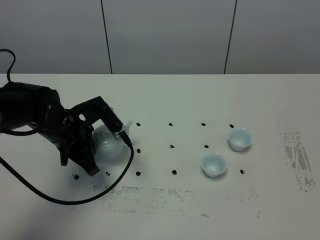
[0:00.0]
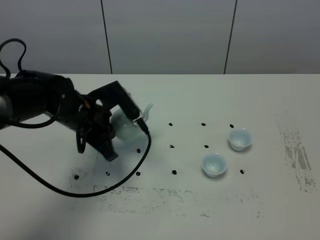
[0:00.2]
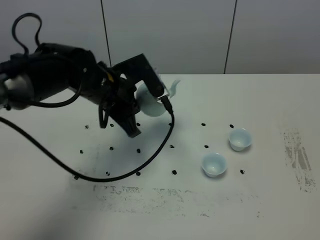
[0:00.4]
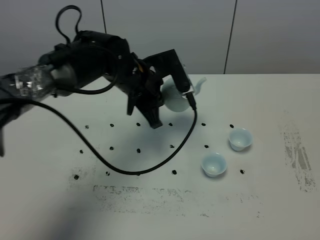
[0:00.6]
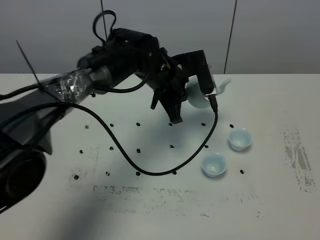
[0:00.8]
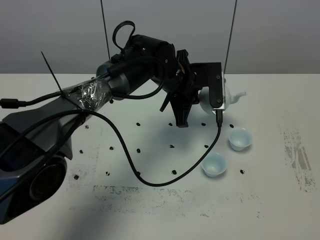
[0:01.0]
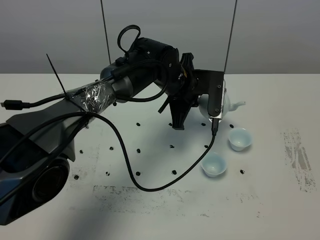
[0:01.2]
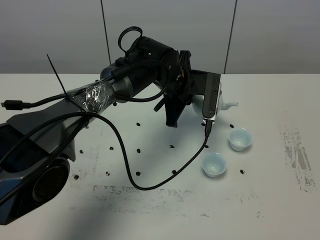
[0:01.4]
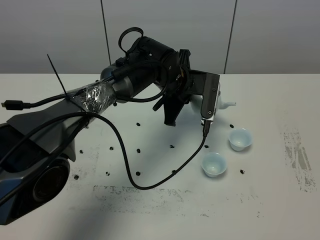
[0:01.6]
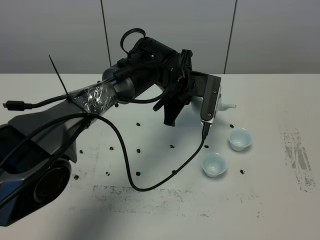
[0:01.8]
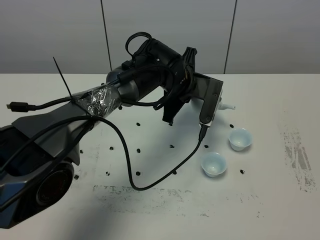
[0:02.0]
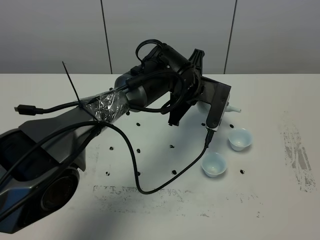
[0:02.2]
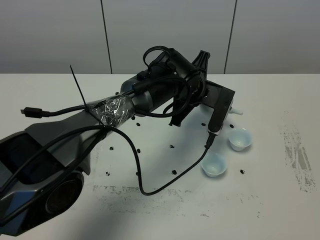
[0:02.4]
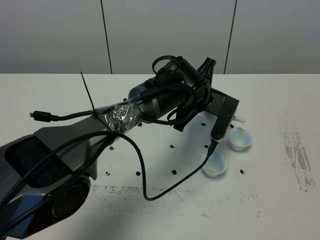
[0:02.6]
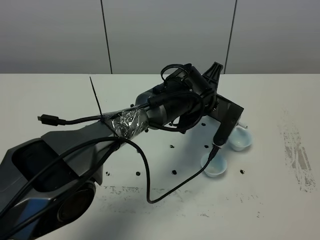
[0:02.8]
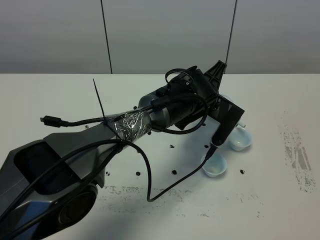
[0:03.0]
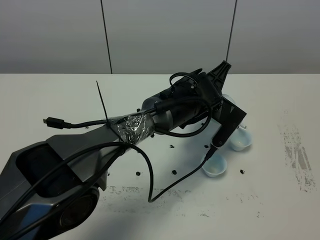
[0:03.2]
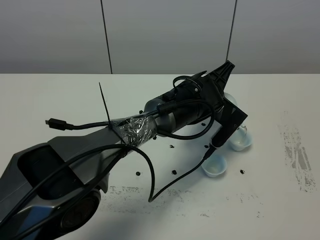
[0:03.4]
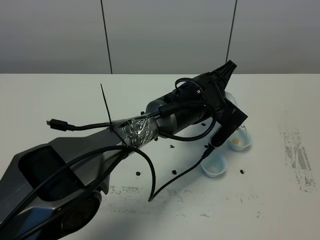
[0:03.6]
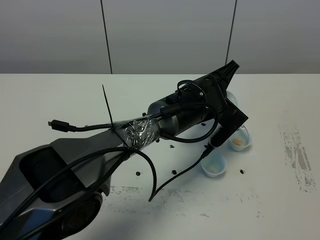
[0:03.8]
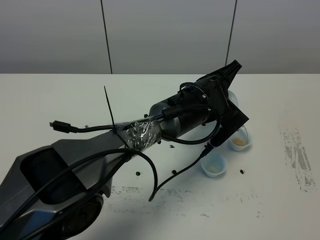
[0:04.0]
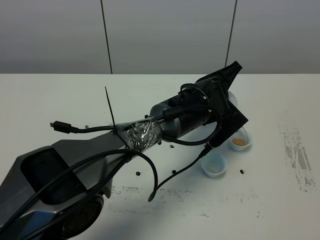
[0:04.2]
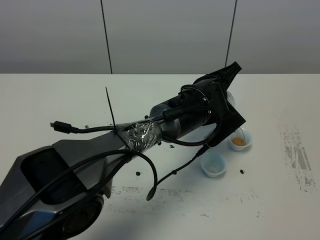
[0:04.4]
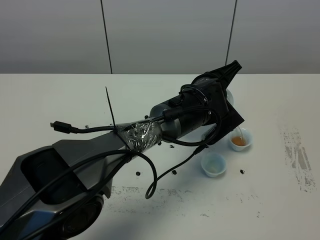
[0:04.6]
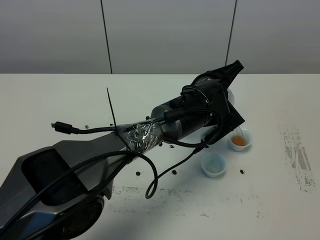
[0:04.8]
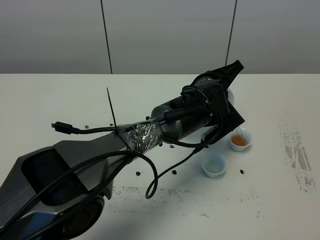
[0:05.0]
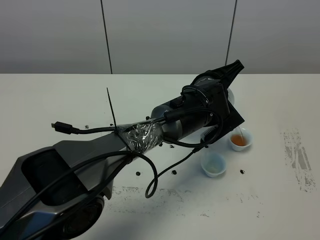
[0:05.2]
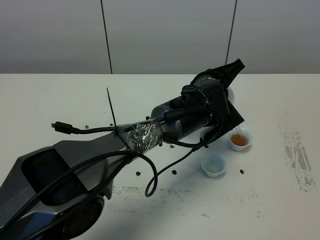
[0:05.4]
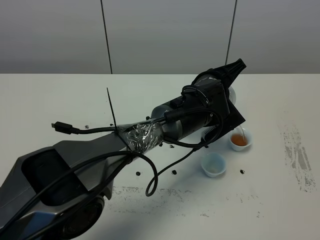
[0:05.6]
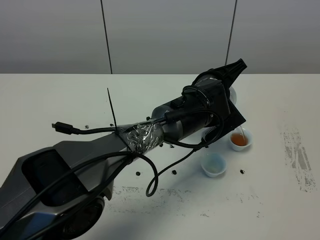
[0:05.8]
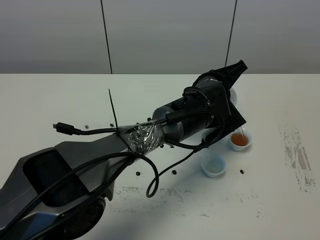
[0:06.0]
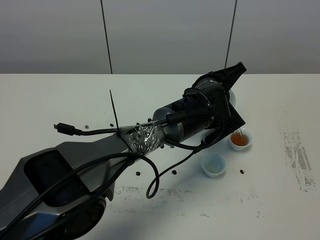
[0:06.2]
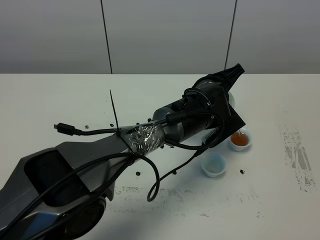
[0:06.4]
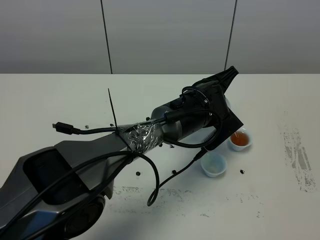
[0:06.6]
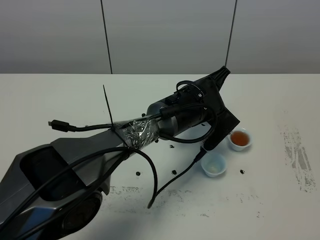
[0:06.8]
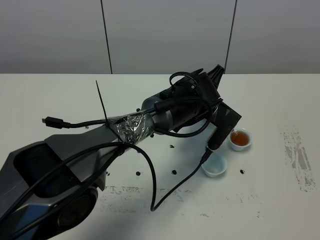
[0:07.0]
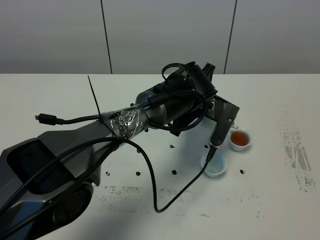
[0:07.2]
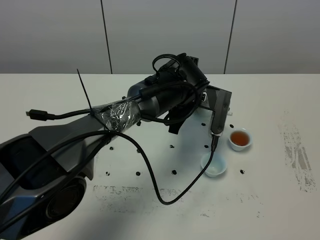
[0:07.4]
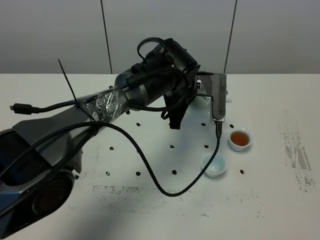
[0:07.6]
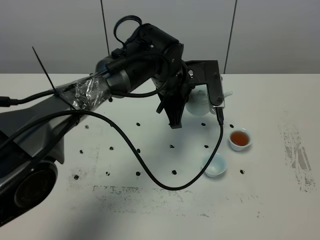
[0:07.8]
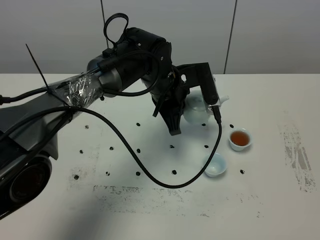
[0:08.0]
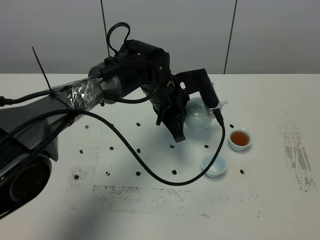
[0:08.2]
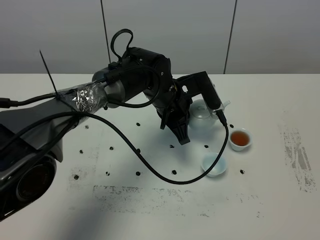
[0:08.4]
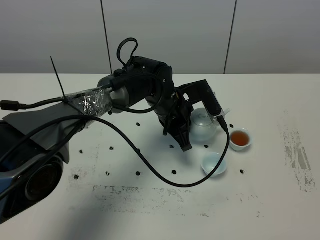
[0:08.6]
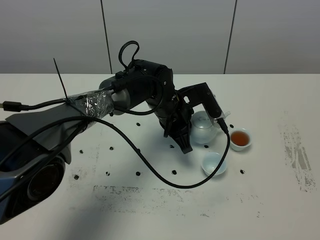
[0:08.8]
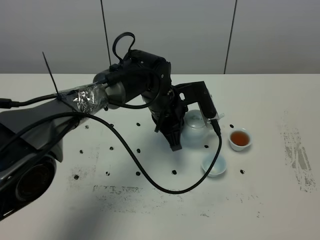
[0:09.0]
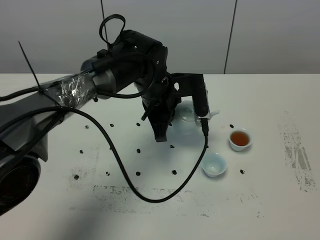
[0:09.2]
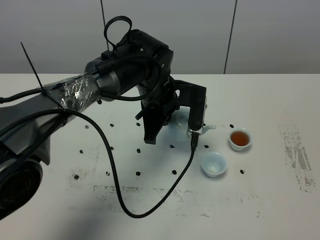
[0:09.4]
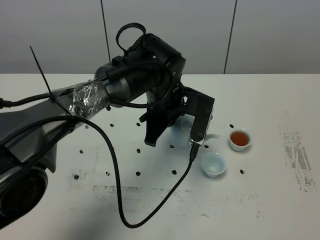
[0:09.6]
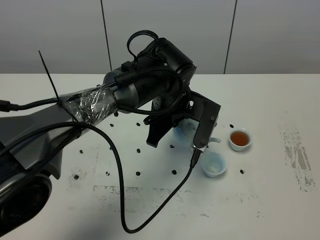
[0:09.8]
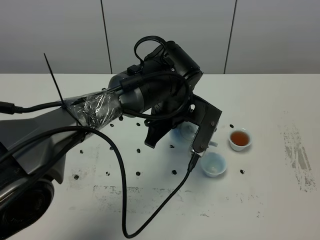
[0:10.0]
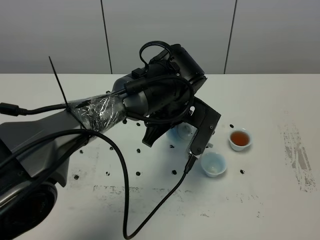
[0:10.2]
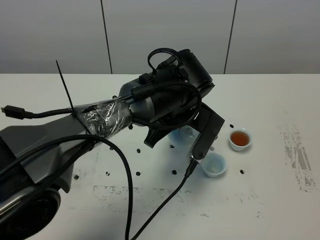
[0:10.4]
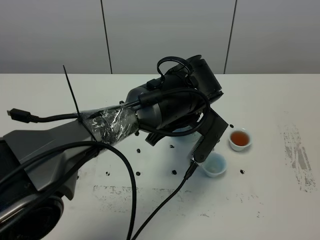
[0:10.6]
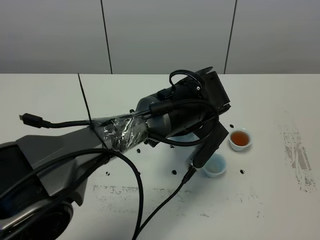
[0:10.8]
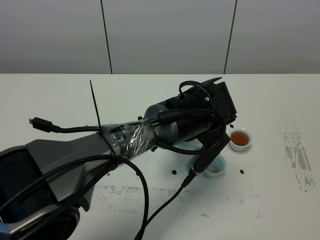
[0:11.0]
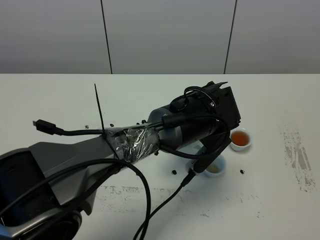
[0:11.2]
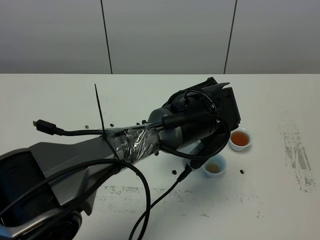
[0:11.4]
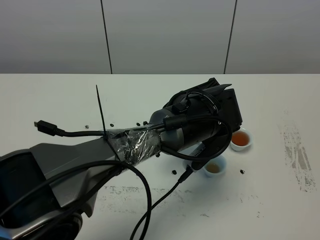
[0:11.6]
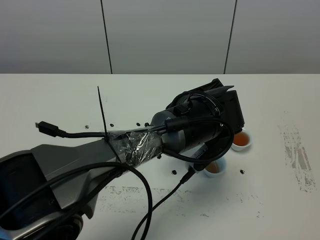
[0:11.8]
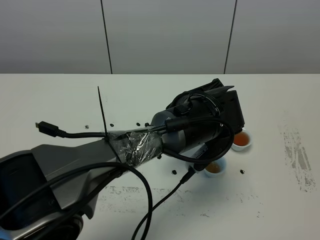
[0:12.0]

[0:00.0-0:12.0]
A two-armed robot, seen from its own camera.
Task of the whole recording: grasp the blue porcelain teapot and pour the tea into the two blue porcelain teacups one by one, put the blue porcelain teapot back in its original place.
Step, 0:00.0 to 0:07.2: Pour tea into the teacup with the left gripper.
0:00.0 to 0:01.6: The left gripper travels to the right and forward by about 20 cm.
0:01.6 to 0:03.0: The left gripper heads to the right, covering approximately 5 cm.
0:03.0 to 0:04.4: There are only small adjustments of the grippers.
0:04.4 to 0:06.0: There are only small adjustments of the grippers.
0:06.0 to 0:07.6: The left gripper heads to the left, covering approximately 5 cm.
0:09.0 to 0:10.4: The left gripper travels backward by roughly 5 cm.

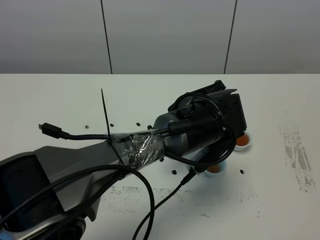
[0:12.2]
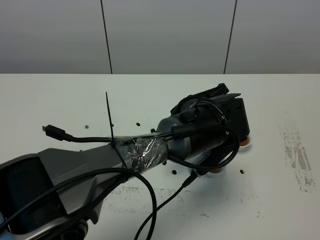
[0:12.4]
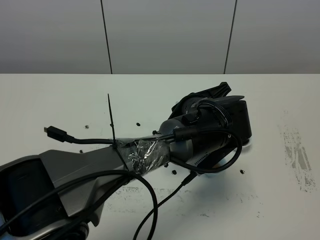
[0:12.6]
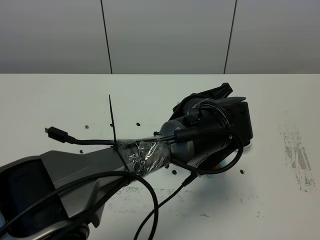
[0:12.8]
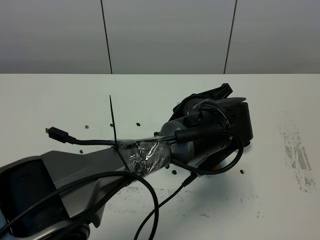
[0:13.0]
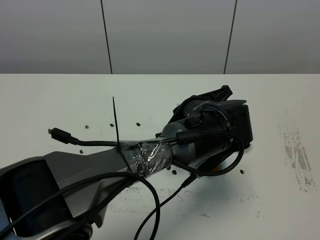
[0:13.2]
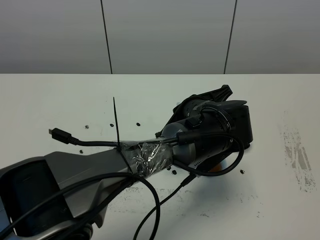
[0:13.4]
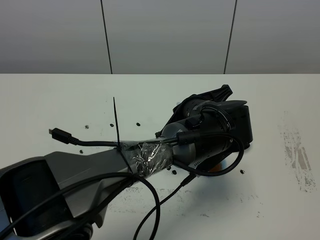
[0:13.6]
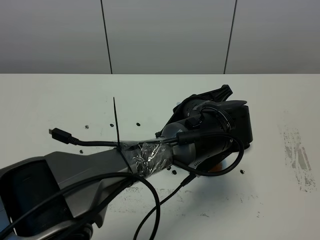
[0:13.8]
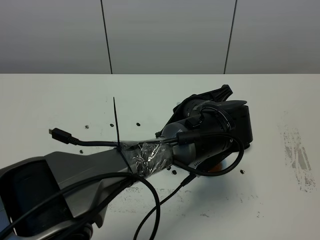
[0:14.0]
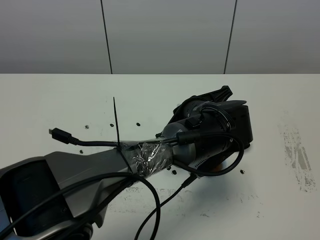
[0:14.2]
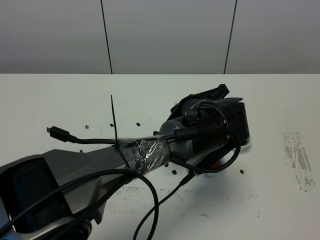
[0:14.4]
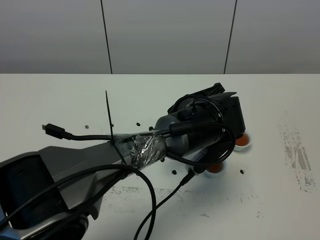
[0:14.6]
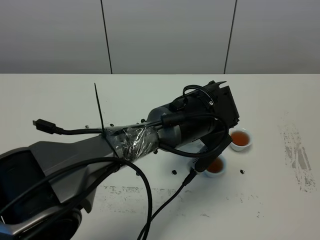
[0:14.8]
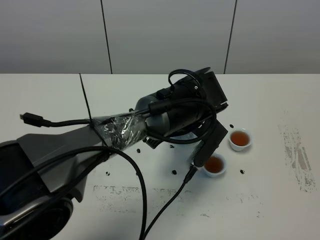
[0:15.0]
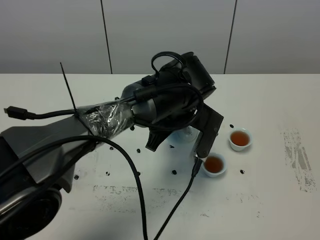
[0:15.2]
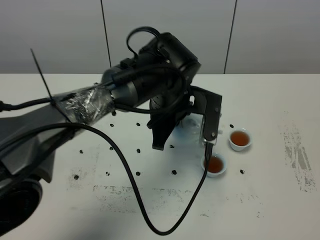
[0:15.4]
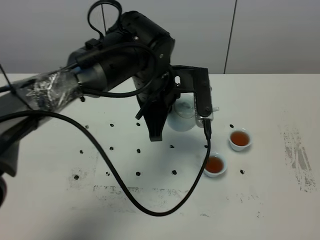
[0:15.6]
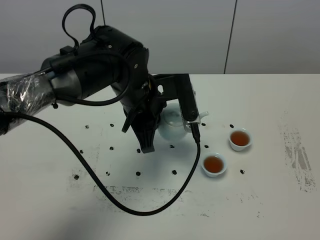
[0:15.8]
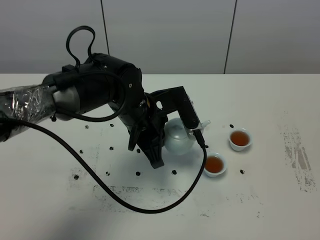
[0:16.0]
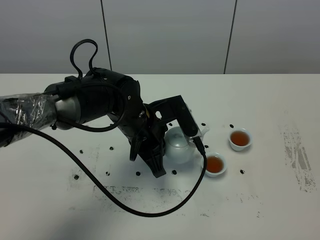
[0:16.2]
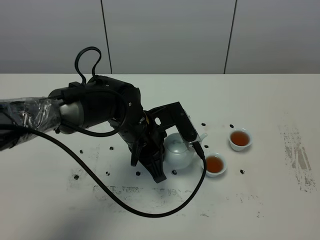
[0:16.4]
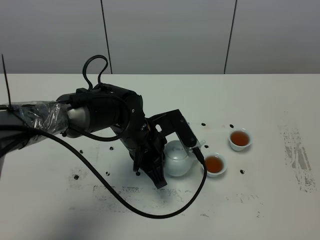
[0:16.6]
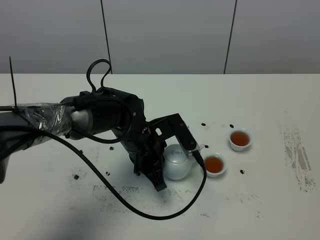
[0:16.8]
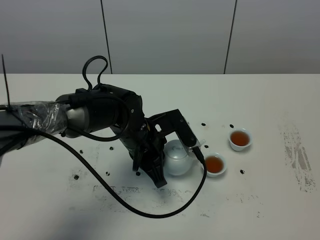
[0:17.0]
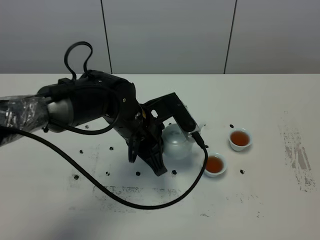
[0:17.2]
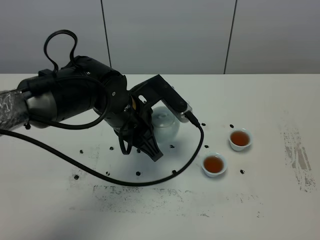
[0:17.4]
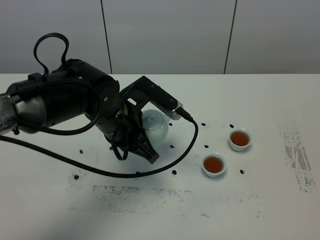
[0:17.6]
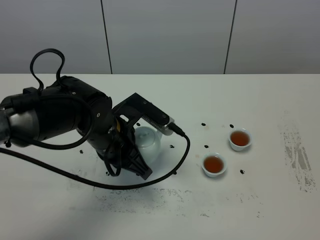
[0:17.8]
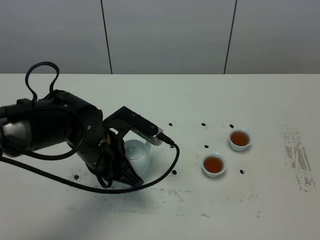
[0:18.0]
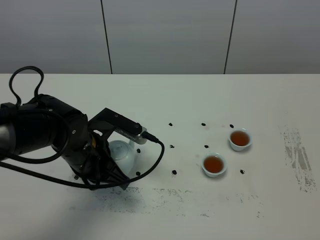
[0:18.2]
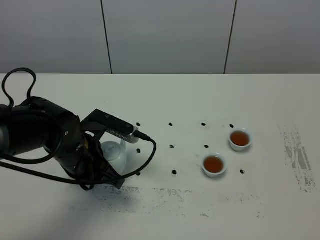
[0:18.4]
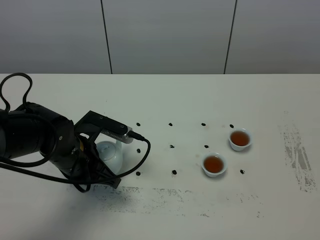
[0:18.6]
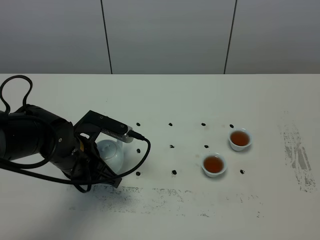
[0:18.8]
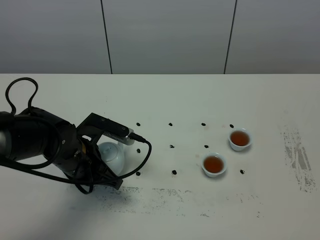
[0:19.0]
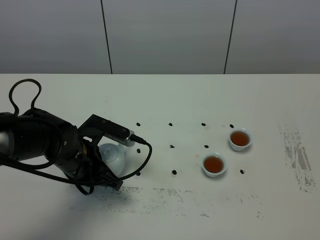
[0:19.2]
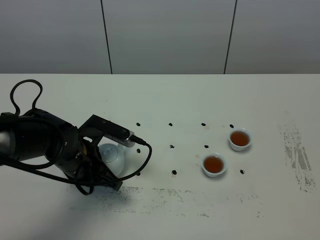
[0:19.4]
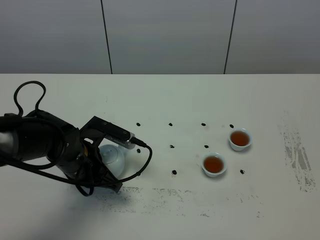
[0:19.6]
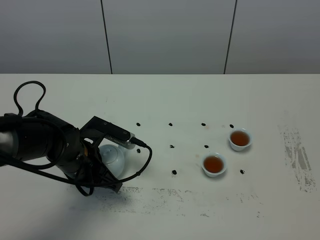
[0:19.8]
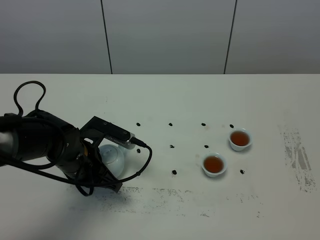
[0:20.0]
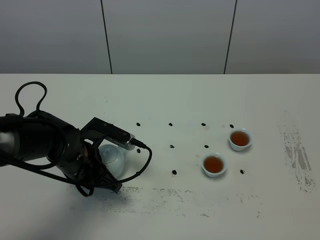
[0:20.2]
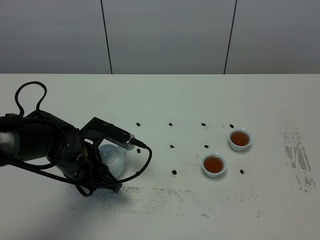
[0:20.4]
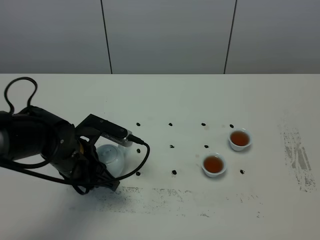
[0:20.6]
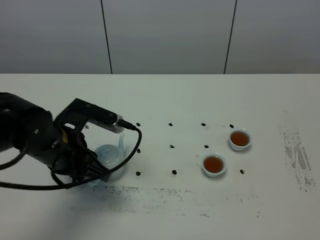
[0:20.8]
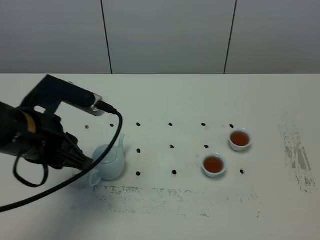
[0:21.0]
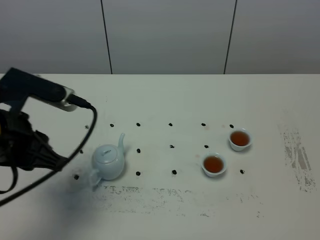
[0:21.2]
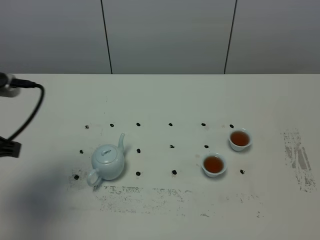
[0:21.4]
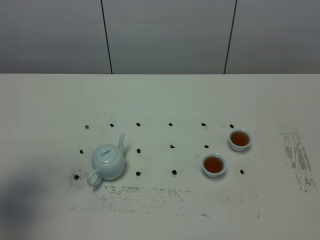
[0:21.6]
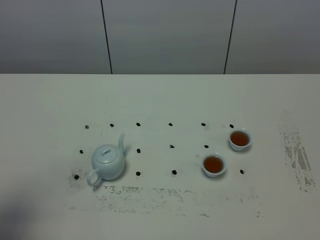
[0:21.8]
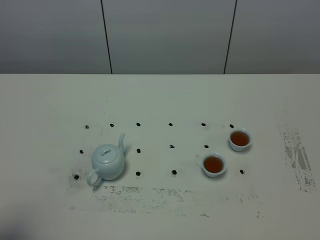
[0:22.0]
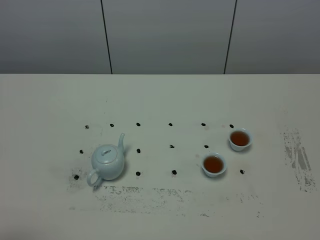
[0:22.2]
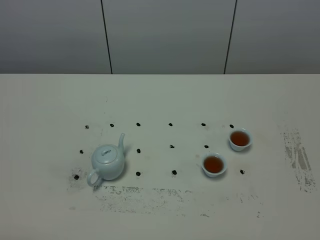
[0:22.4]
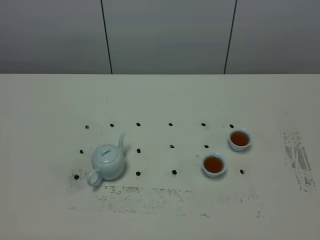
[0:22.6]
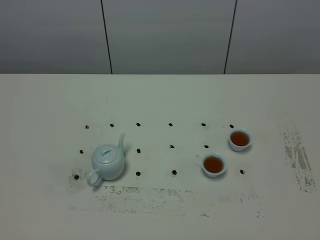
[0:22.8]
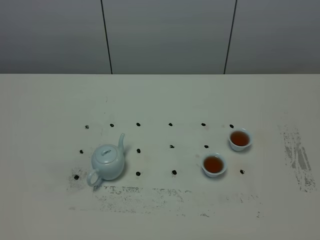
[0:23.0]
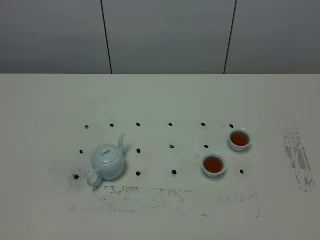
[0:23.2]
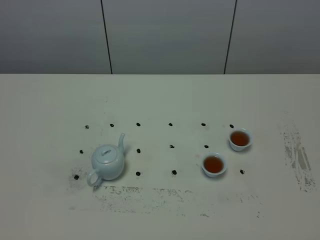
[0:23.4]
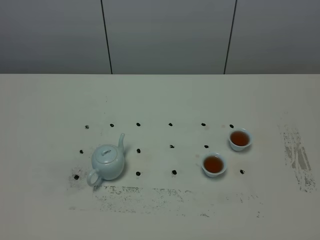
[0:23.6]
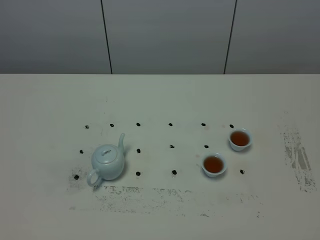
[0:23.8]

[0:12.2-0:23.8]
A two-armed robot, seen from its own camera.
Task of the whole recording: grasp the blue porcelain teapot and pour the tea into the two blue porcelain teacups one by one, put the blue porcelain teapot back in its original place.
Step, 0:12.2 to 0:15.2: Pour tea into the teacup with the left gripper.
0:12.2 to 0:13.6: The grippers stay close to where they were, moving slightly.
0:15.0 to 0:16.6: The left gripper moves to the left and downward, approximately 10 cm.
0:16.6 to 0:18.0: The left gripper travels to the left by roughly 5 cm.
0:18.0 to 0:19.4: The left gripper changes place by about 5 cm.
0:19.4 to 0:21.0: The left gripper travels upward and backward by about 15 cm, and opens up.
0:21.0 to 0:22.4: The left gripper is displaced backward and to the left by about 25 cm.
